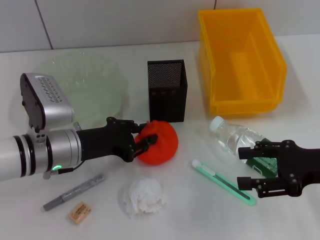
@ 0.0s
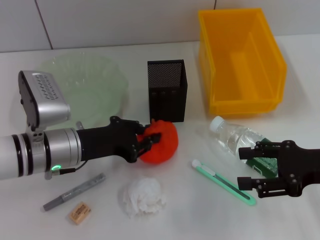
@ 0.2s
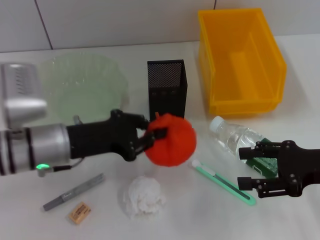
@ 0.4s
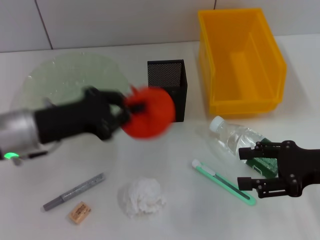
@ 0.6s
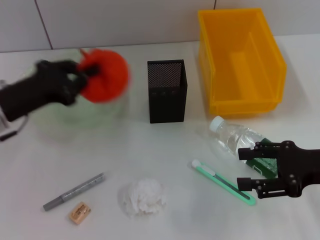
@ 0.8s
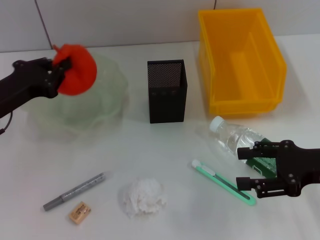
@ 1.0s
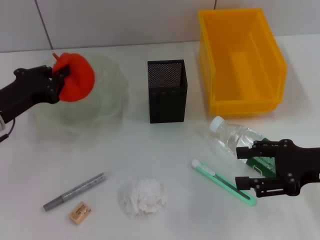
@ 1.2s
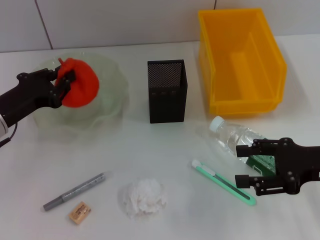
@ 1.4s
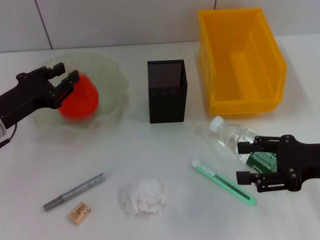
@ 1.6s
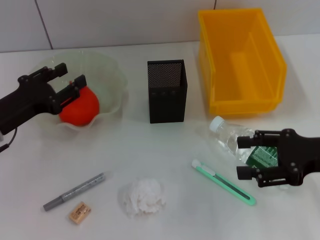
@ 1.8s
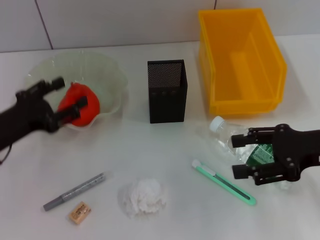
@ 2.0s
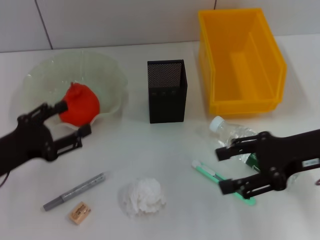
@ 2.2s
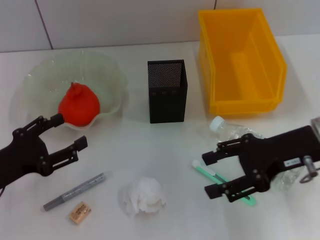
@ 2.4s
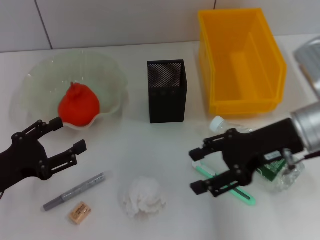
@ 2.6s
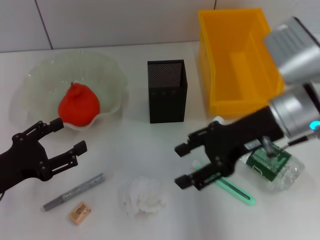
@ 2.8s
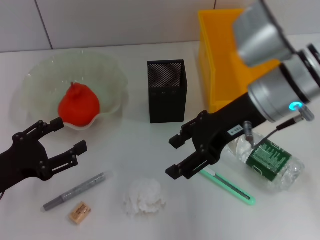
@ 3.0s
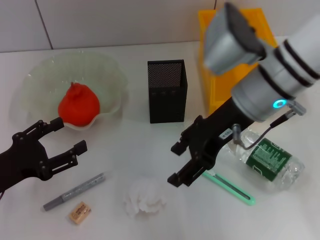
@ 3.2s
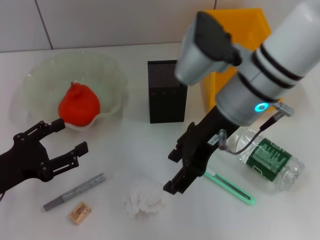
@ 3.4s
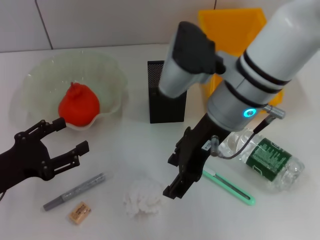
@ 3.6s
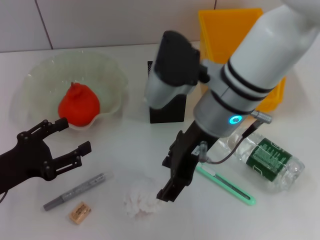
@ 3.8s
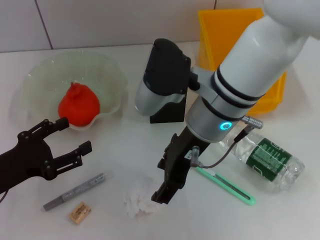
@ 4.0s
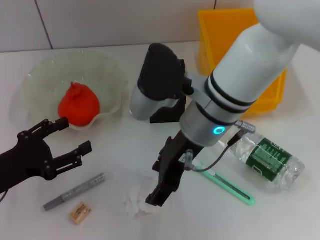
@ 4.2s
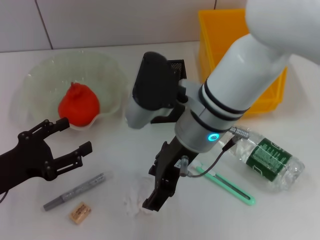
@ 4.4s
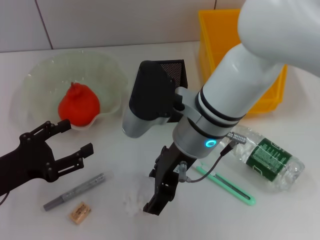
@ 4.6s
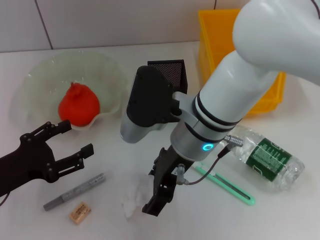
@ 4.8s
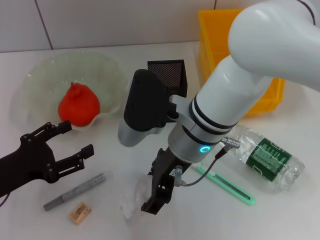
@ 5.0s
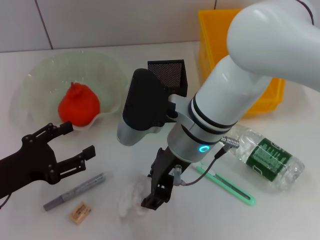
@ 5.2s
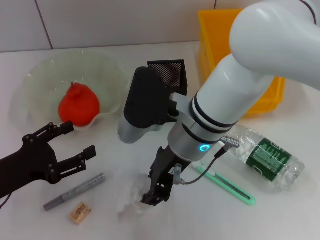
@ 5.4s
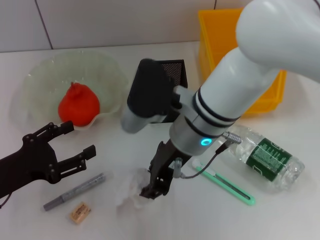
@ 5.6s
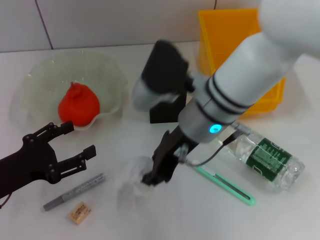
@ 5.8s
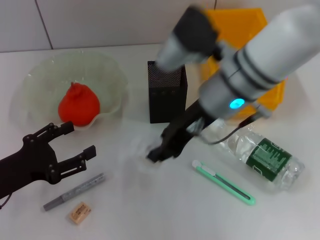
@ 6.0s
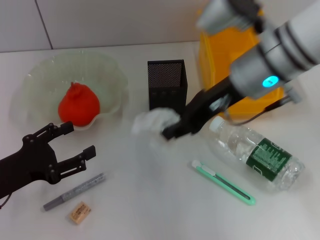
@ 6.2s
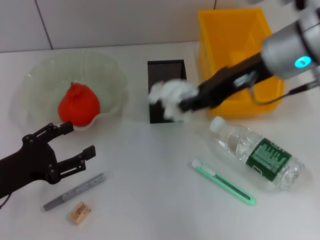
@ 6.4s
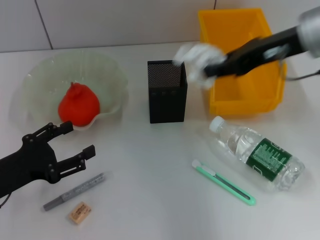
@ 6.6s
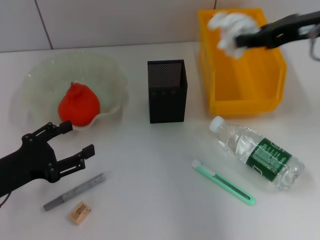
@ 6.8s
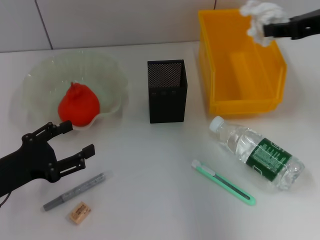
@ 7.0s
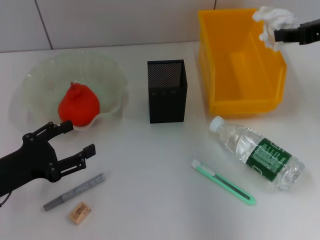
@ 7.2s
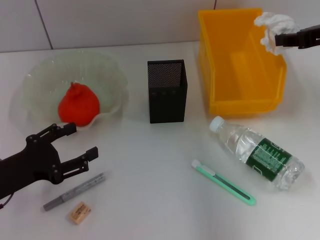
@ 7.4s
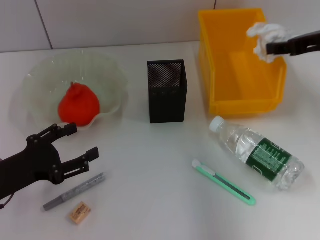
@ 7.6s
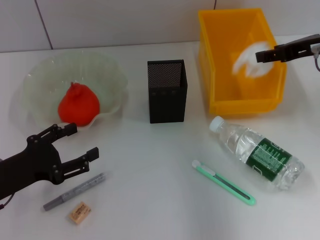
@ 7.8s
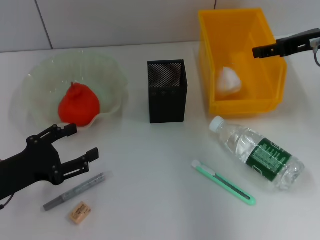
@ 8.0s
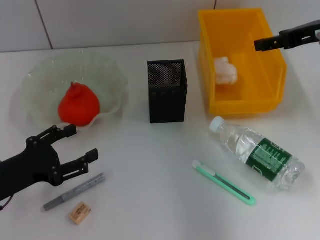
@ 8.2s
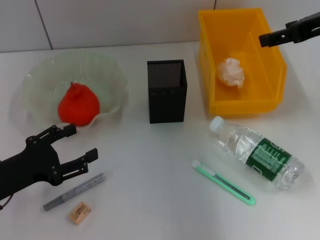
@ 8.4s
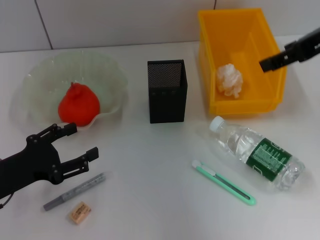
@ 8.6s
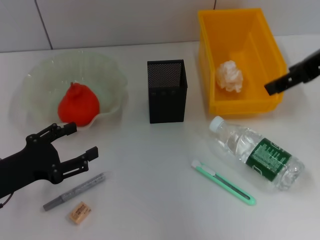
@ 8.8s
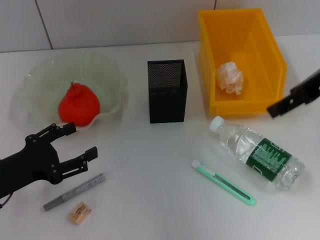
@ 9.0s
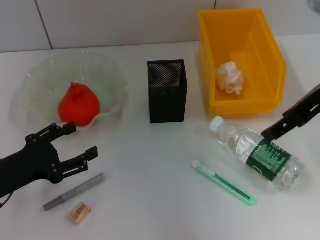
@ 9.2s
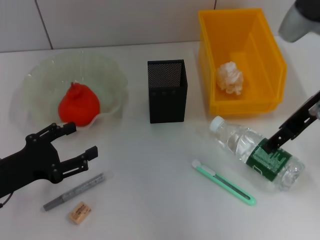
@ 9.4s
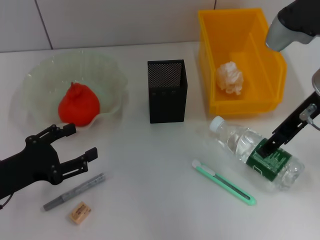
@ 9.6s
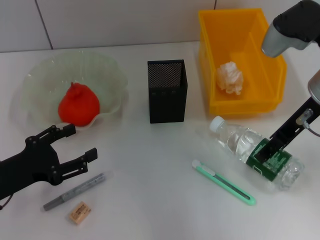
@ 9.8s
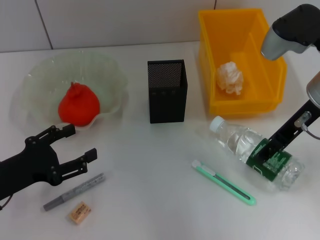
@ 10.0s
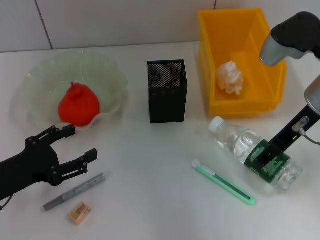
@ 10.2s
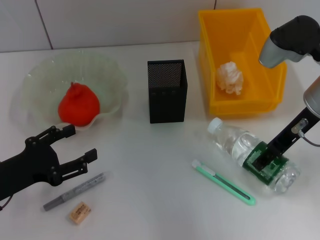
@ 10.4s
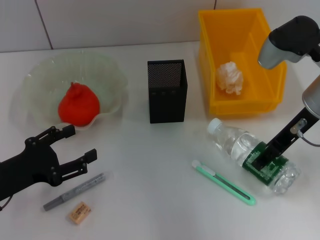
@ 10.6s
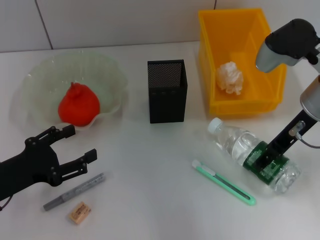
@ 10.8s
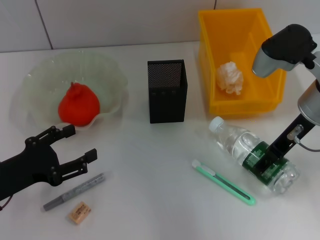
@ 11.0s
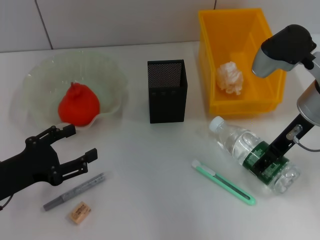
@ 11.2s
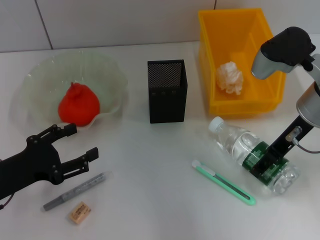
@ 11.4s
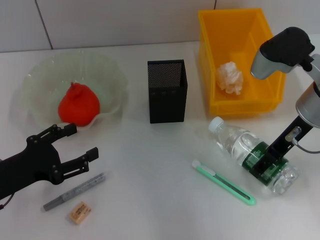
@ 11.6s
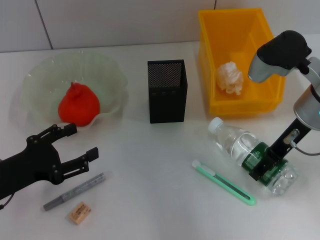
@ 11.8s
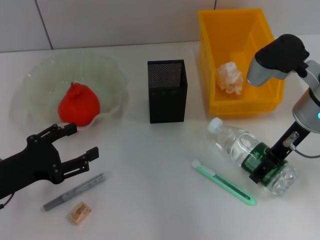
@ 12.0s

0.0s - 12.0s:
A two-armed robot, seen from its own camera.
Step, 0.2s - 1.8s: Place the orange into the fruit bowl with the left hand.
Step, 2.2s - 5.2s: Grab the paper ball with the right hand.
Step, 5.4s - 8.2s: Place the paper ball into the trash can with the right hand.
0.0s - 1.6s: The left gripper moves to the left, some 10 cm.
1.6s - 3.0s: The right gripper heads to the left, forward and upward, covering approximately 20 cm; the left gripper moves backward, some 10 cm, and opens.
3.0s - 4.4s: The right gripper shifts some 10 cm to the left.
4.4s - 6.0s: The right gripper ends up roughly 5 cm from where it was, and closes.
6.0s - 7.6s: The right gripper is displaced to the right by roughly 20 cm.
7.6s - 9.0s: The right gripper is displaced upward by some 5 cm, and opens.
9.0s - 10.4s: The right gripper moves downward, some 10 cm.
10.4s - 12.0s: The grippers make only small movements.

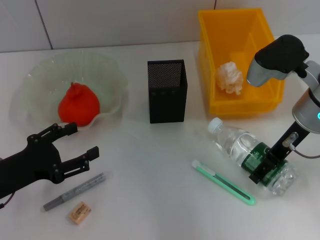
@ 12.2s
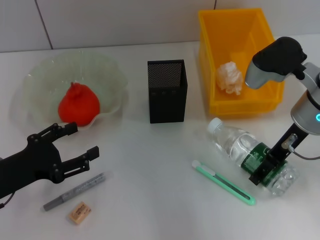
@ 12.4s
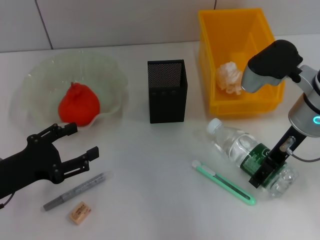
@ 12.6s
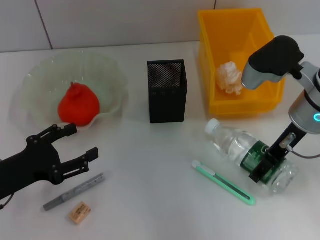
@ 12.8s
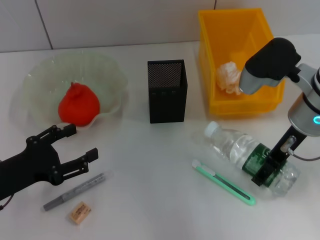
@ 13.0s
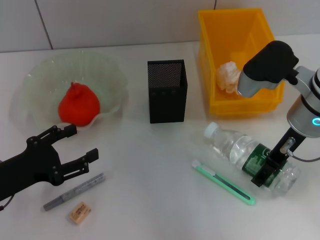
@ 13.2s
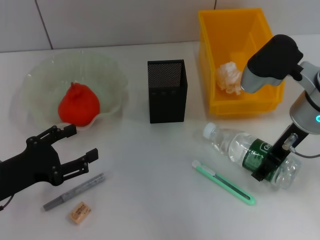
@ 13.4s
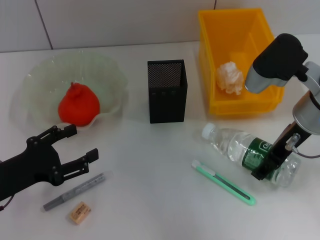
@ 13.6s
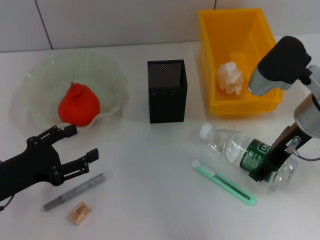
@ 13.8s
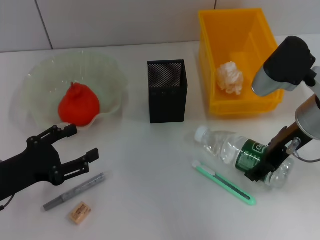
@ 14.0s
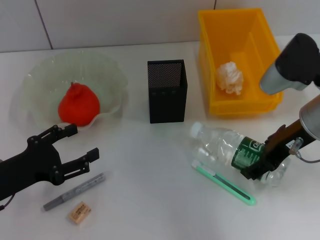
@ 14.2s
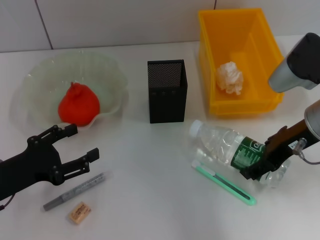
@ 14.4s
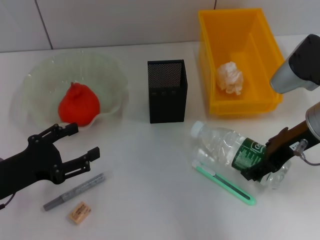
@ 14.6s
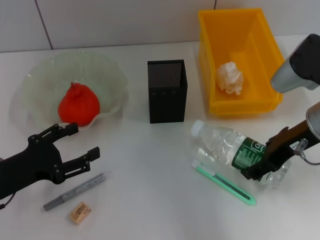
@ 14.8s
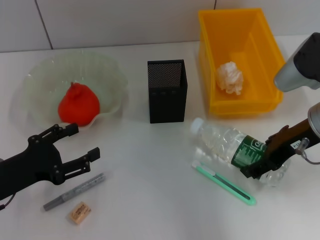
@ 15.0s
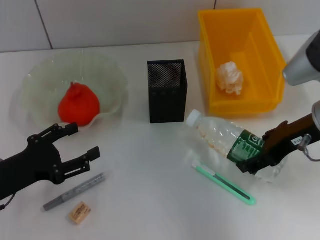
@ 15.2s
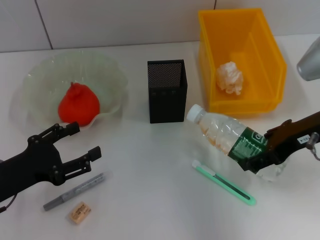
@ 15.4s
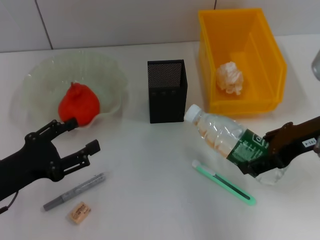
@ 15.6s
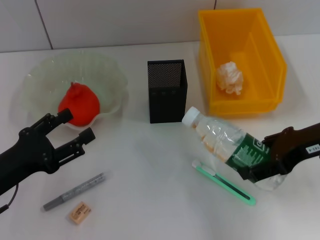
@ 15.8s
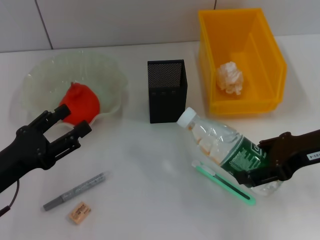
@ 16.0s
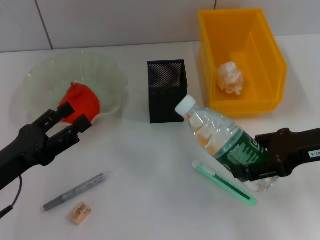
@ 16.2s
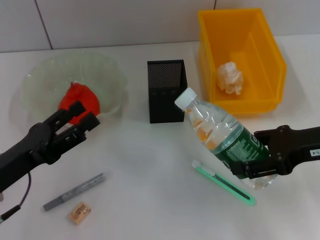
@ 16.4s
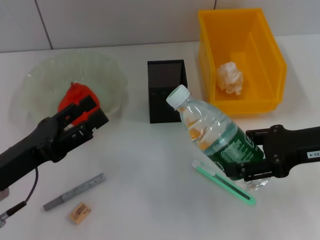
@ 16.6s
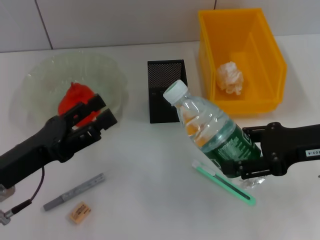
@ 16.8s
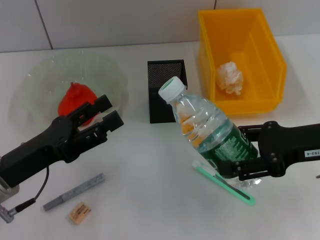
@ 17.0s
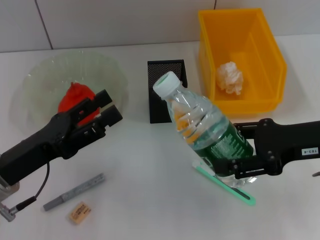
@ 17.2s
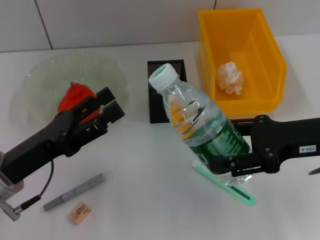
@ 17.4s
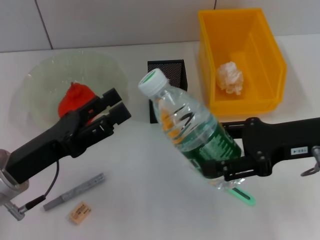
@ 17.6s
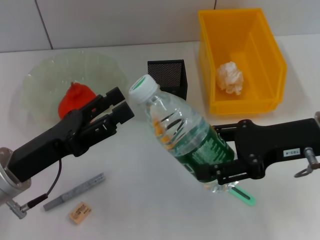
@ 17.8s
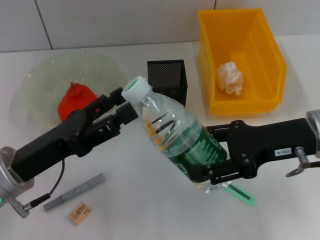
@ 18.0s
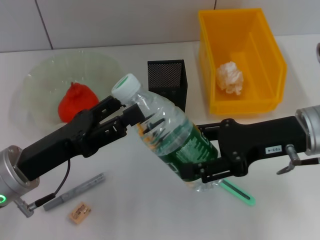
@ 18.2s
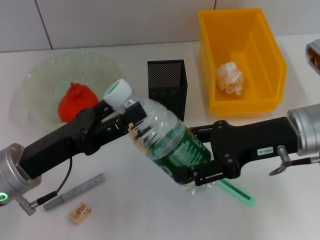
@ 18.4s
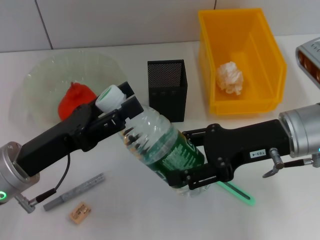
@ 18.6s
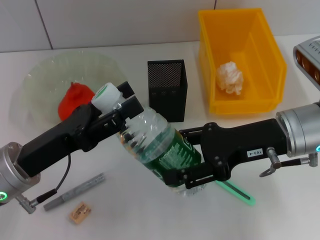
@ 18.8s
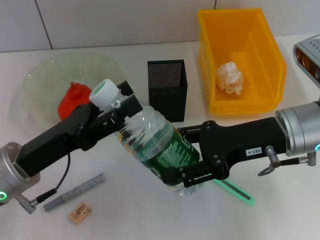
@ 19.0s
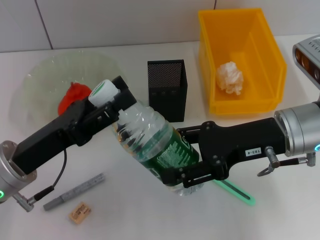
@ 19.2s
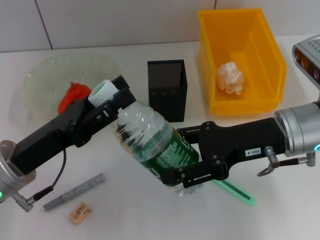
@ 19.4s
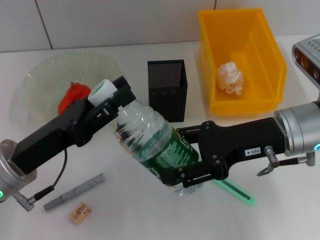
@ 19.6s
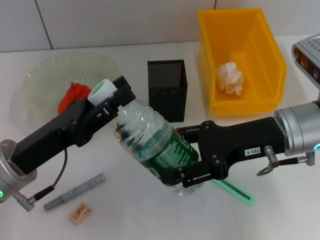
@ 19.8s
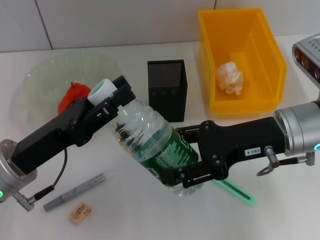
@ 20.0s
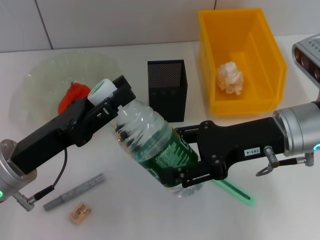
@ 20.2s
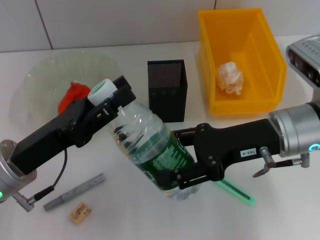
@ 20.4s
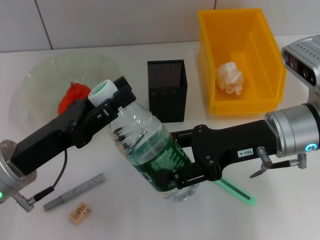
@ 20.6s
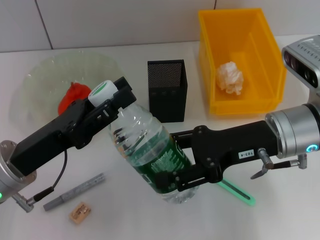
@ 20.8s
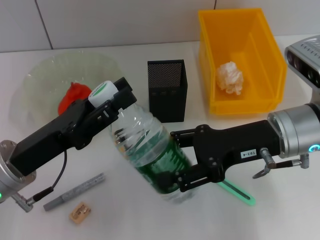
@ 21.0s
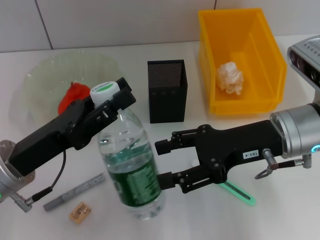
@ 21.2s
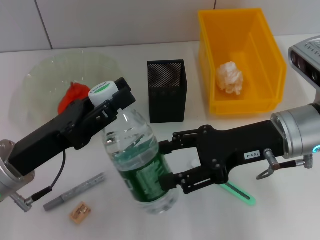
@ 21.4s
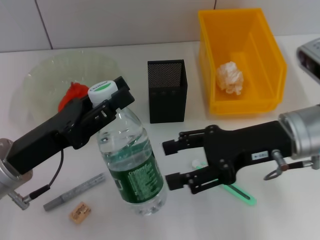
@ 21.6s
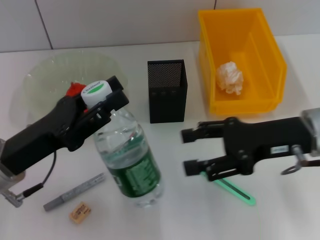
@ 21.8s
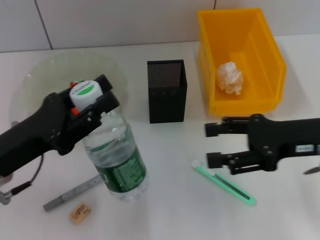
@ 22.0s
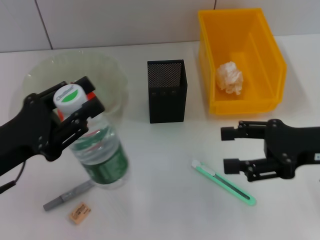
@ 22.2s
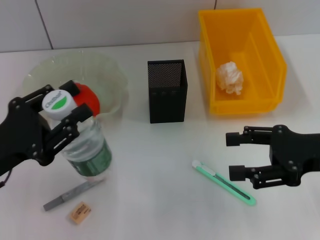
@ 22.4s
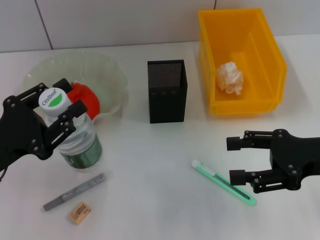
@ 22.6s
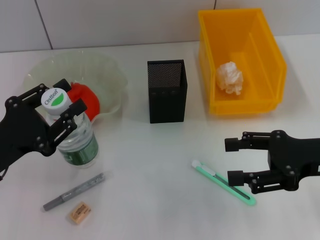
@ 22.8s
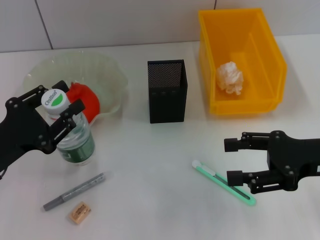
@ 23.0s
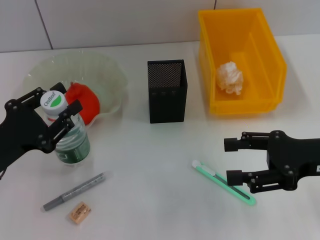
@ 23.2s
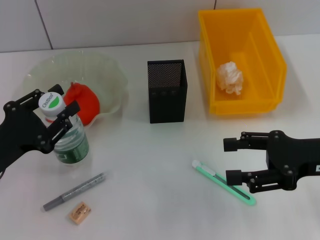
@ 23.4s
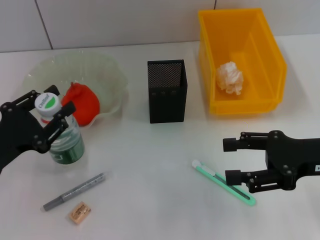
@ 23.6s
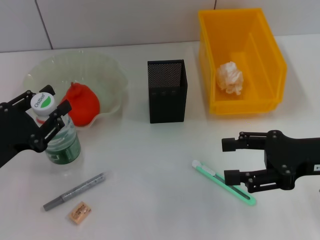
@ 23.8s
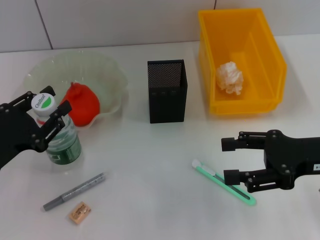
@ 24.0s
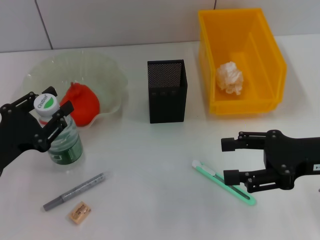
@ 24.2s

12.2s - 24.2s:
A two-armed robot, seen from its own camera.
Step, 13.2s - 21.4s: Pass the water bottle from the right hand to the left hand.
12.2s - 13.8s: There are only small adjustments of the grippers.
13.8s - 15.2s: There are only small adjustments of the grippers.
15.2s - 16.6s: The right gripper ends up about 5 cm from where it was.
16.6s - 18.2s: The right gripper is displaced to the left by about 5 cm.
18.2s - 19.8s: The left gripper closes its fingers.
19.8s - 21.2s: Both grippers stay about where they are.
21.2s - 22.6s: The left gripper moves to the left, about 5 cm; the right gripper shifts some 10 cm to the right.
22.6s - 24.2s: The grippers stay close to where they were, moving slightly.
